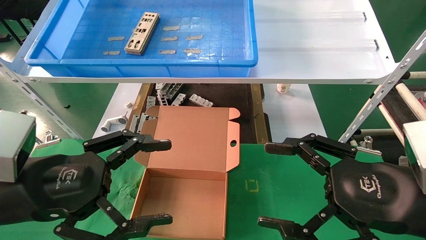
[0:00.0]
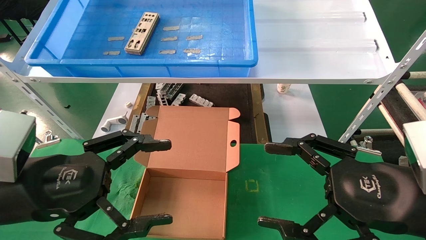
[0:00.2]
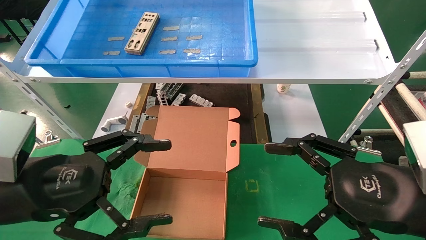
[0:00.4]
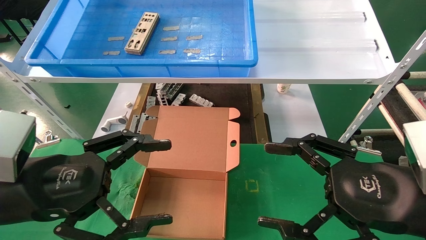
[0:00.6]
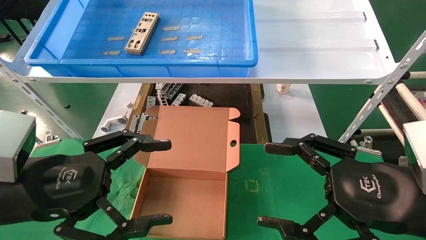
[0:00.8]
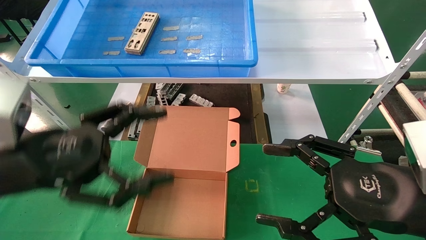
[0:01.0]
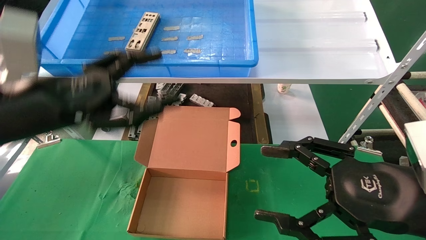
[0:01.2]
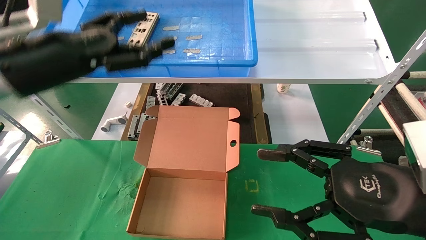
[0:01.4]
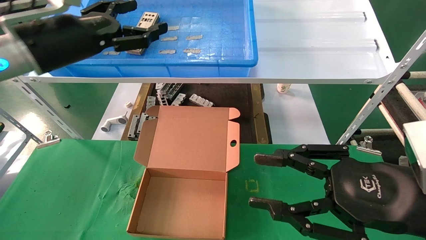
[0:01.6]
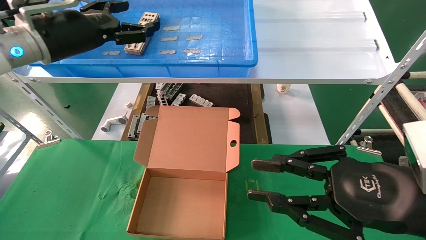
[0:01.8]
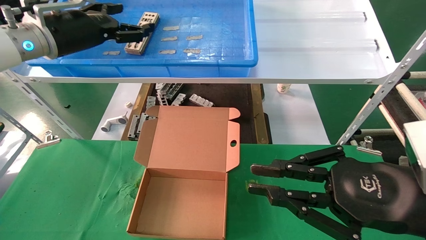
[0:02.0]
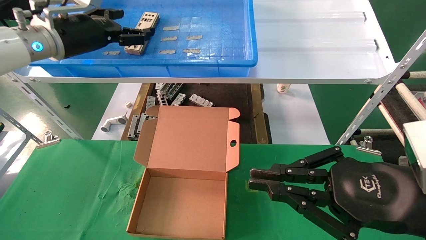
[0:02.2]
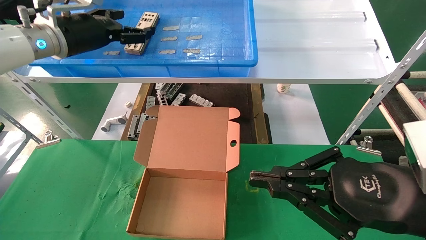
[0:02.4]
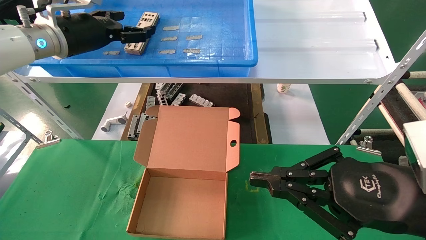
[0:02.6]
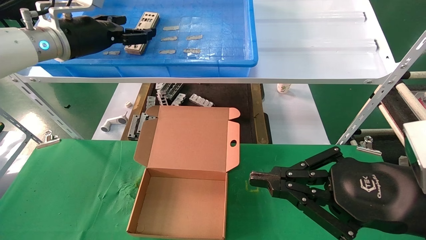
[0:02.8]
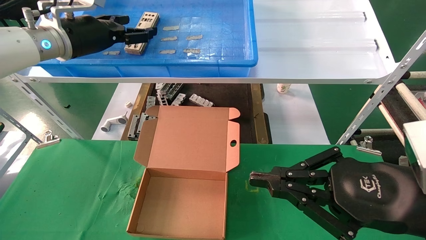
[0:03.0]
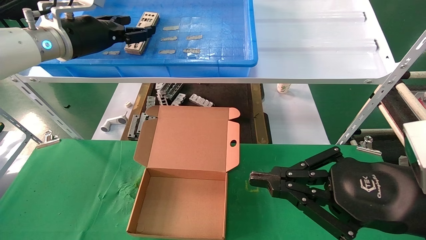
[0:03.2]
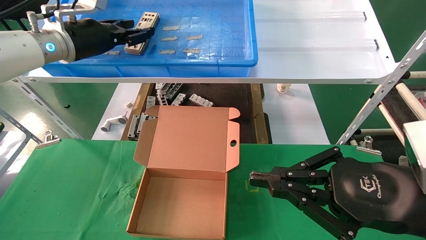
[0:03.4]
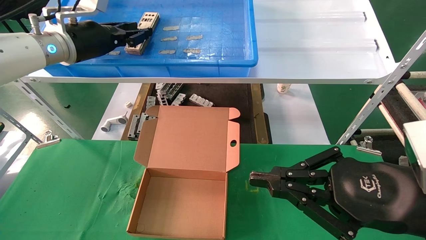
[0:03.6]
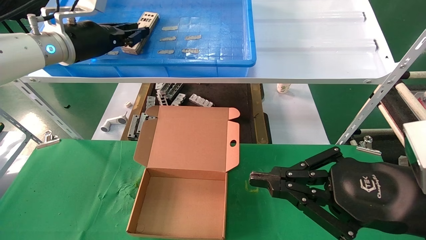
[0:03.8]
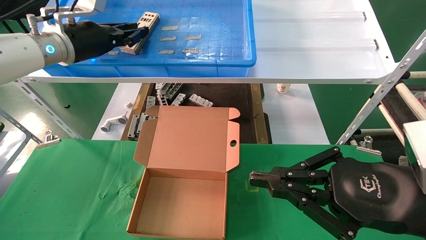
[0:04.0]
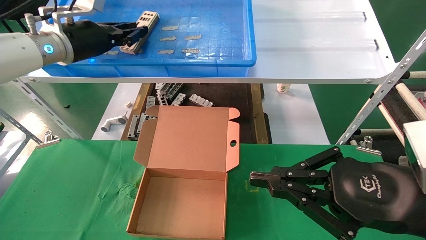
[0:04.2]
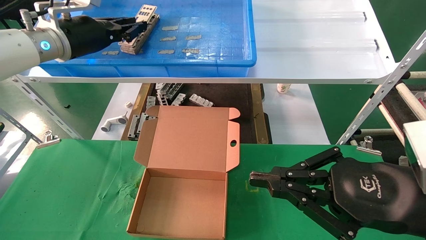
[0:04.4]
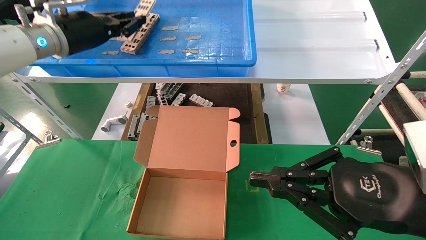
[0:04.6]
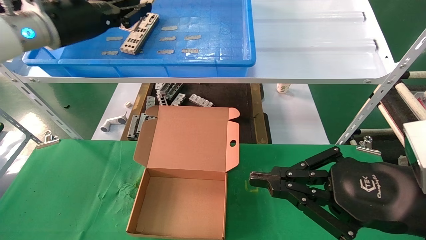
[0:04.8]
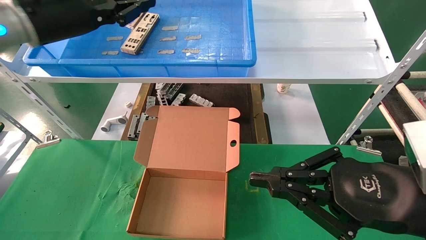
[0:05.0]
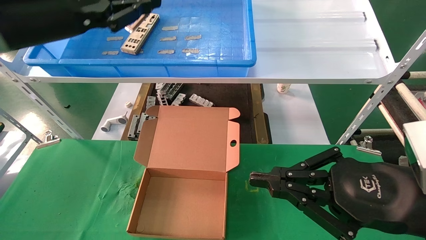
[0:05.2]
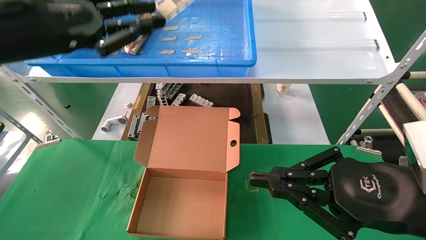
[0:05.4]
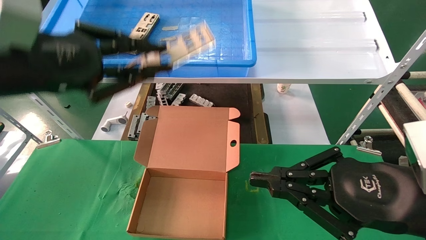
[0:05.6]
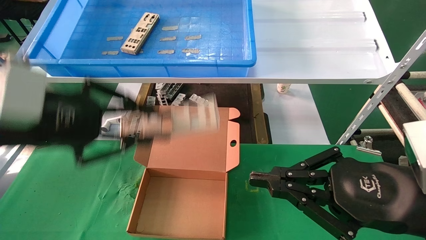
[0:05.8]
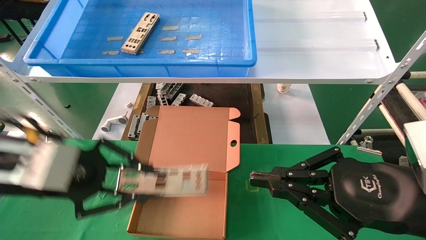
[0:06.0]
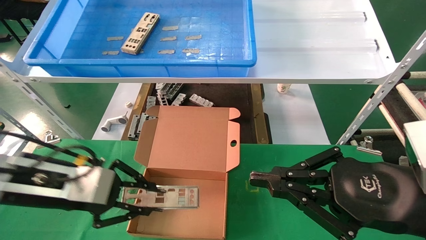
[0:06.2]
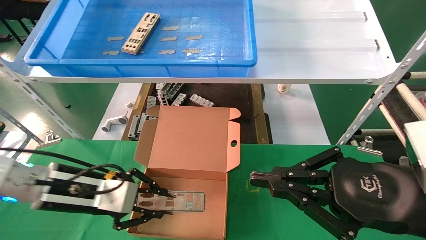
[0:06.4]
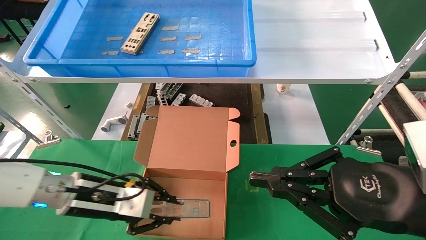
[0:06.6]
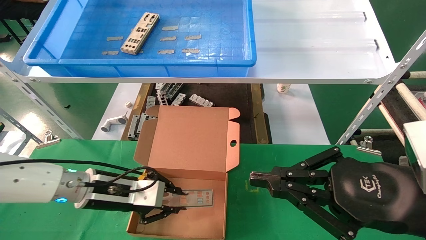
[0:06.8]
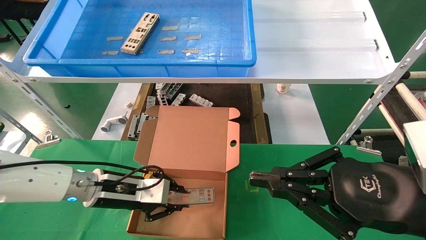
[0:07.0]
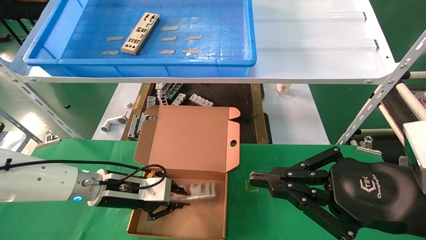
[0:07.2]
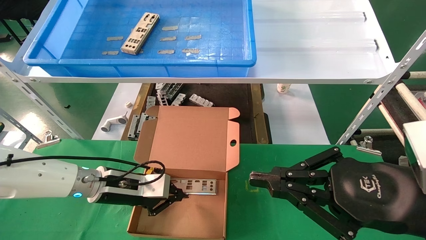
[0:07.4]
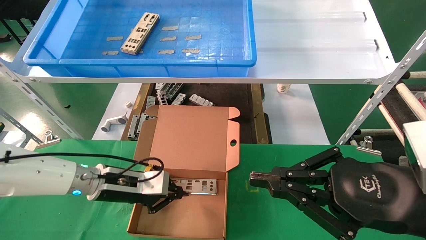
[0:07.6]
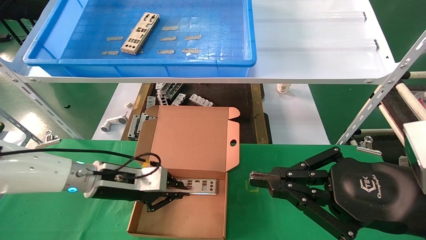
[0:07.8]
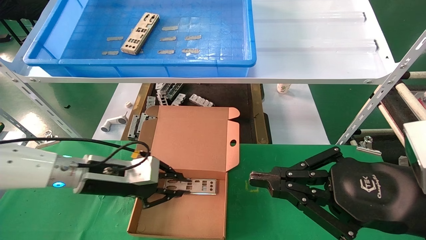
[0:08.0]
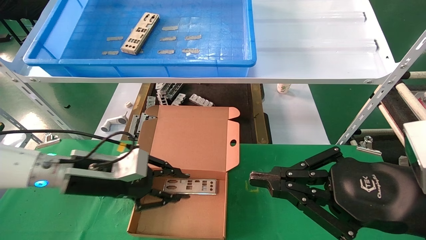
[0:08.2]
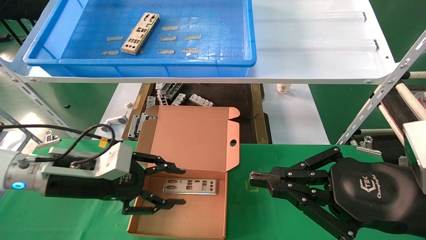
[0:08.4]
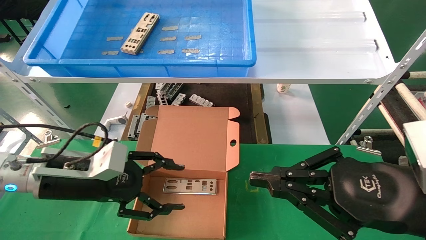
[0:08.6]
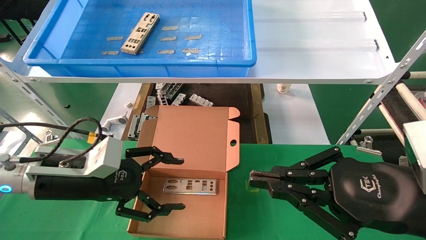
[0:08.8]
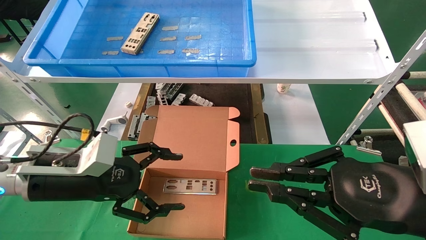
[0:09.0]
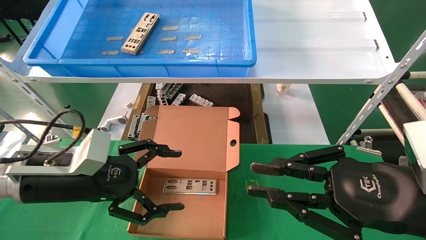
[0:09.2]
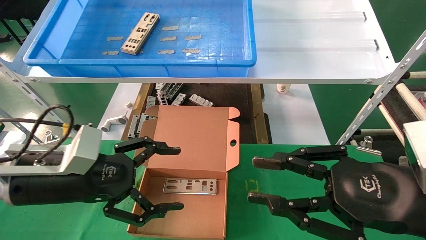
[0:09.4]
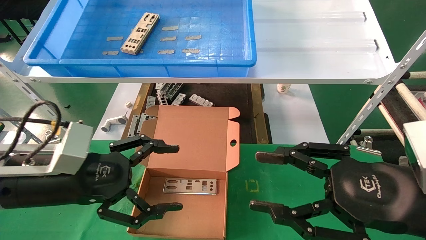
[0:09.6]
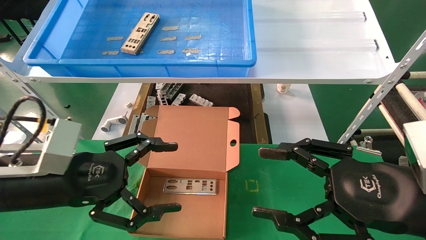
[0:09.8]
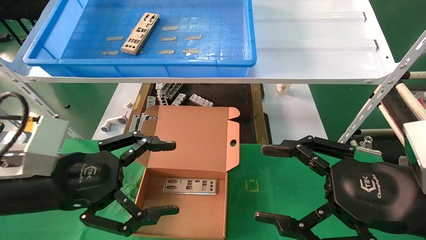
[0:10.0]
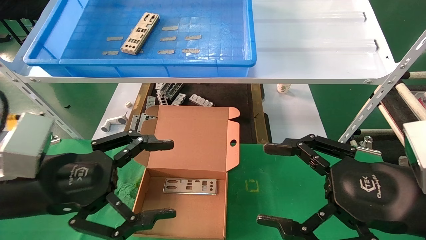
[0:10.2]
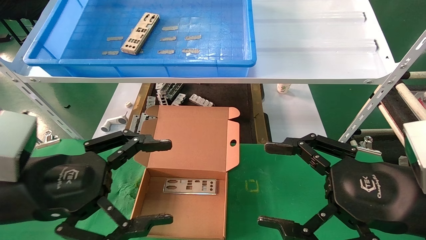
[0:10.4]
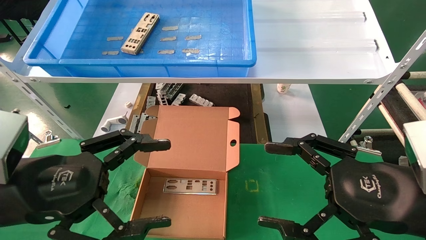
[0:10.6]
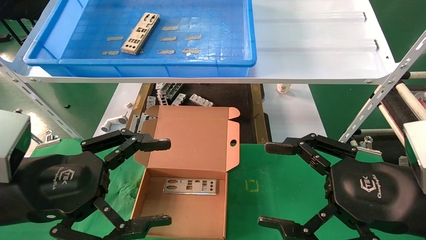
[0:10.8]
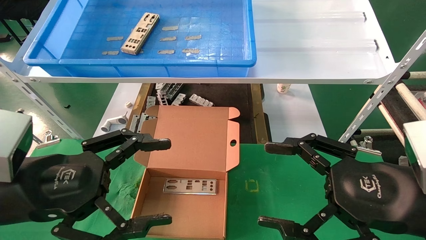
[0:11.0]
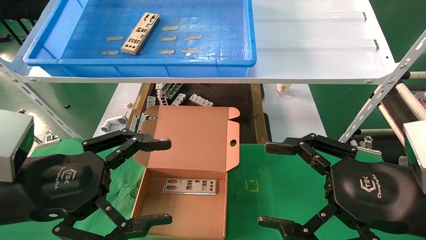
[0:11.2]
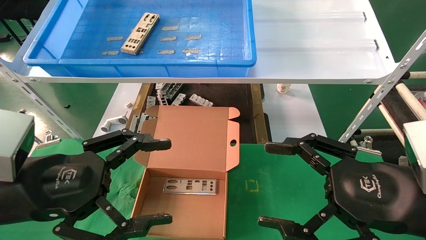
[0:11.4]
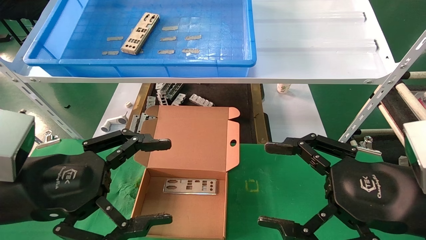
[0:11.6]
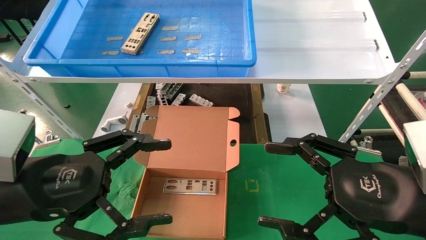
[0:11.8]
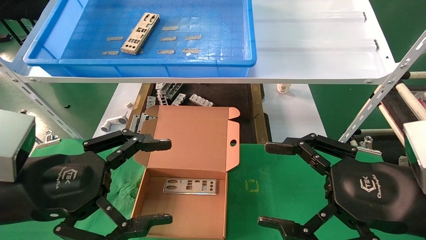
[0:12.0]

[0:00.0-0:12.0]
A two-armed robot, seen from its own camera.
Task of the whole recording: pick up the parts on the tray and put them in the cardboard box.
Step, 0:01.4 to 0:04.0: Pick up the IO bracket from the container box.
Step, 0:04.2 to 0:07.2: Place the IO bracket into the ingredient slot.
0:00.0 to 0:01.6: The right gripper closes, while the left gripper moves forward and upward, about 20 cm.
0:01.6 to 0:03.0: The right gripper closes. The left gripper is displaced forward by some 10 cm.
0:03.0 to 0:04.4: The left gripper closes.
0:04.4 to 0:06.0: The left gripper heads backward and downward, covering about 20 cm.
0:06.0 to 0:07.6: The left gripper travels downward and forward by some 20 cm.
0:07.6 to 0:09.0: The left gripper heads backward and upward, covering roughly 10 cm, and opens.
0:09.0 to 0:10.4: The right gripper opens; the left gripper goes about 10 cm backward.
0:10.4 to 0:12.0: Neither gripper changes place.

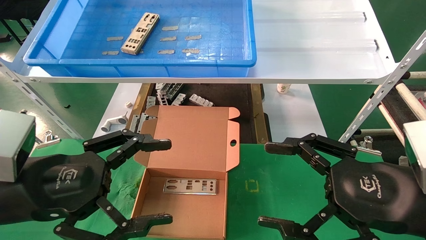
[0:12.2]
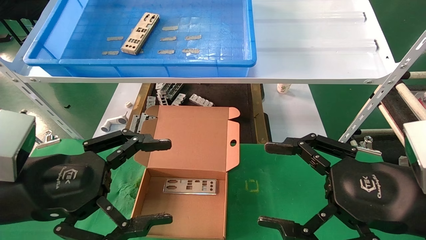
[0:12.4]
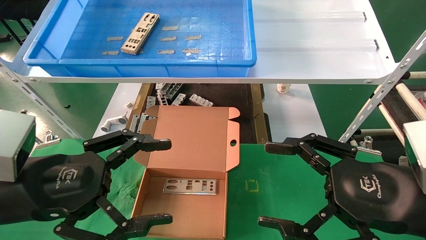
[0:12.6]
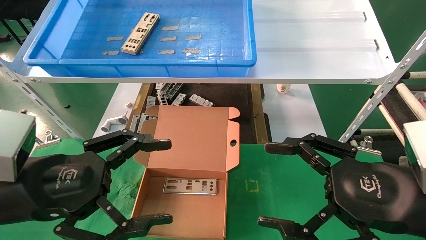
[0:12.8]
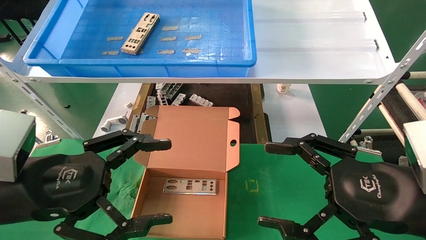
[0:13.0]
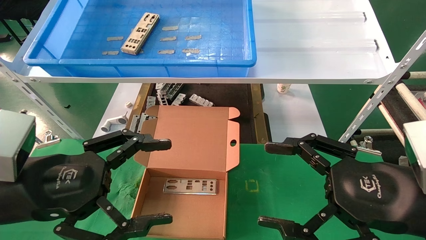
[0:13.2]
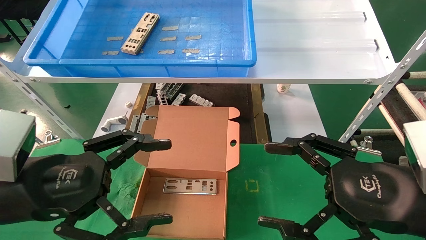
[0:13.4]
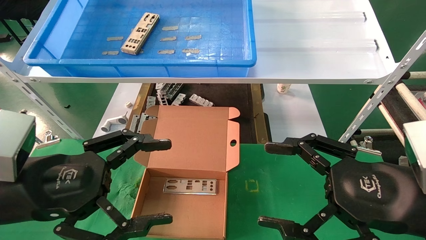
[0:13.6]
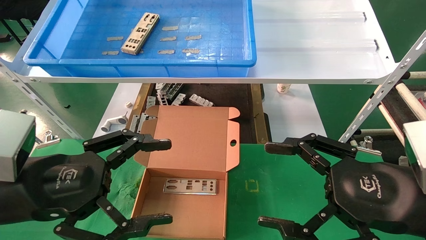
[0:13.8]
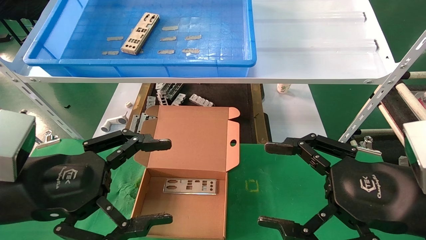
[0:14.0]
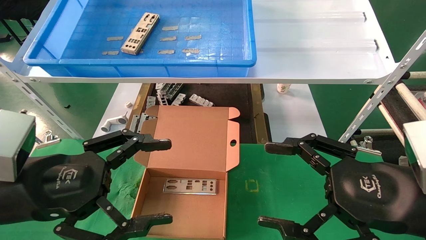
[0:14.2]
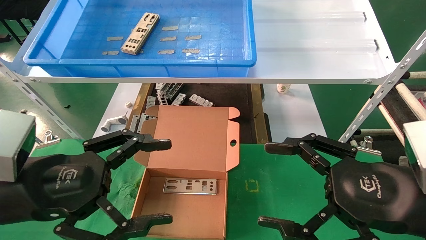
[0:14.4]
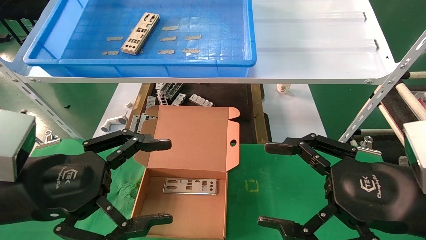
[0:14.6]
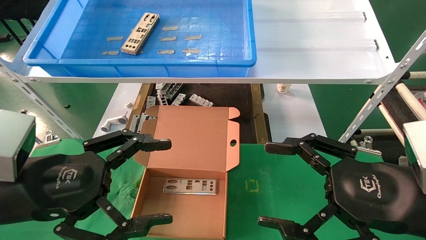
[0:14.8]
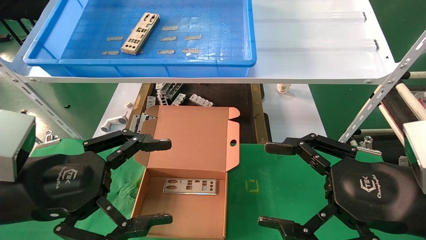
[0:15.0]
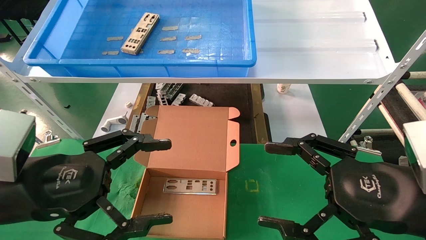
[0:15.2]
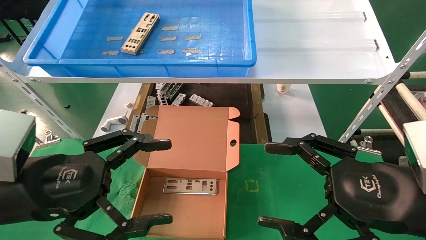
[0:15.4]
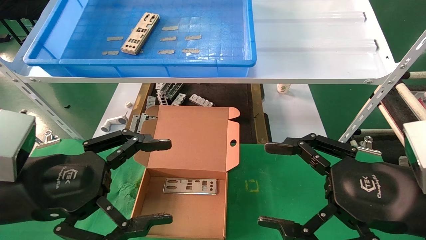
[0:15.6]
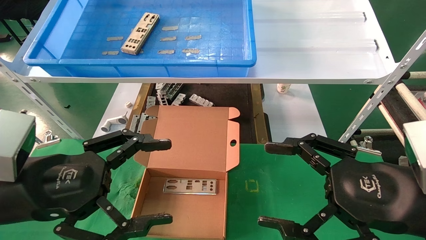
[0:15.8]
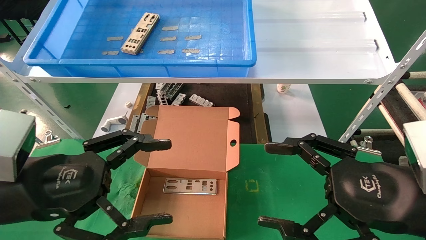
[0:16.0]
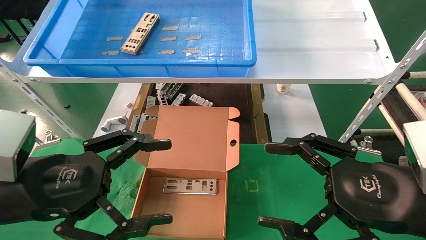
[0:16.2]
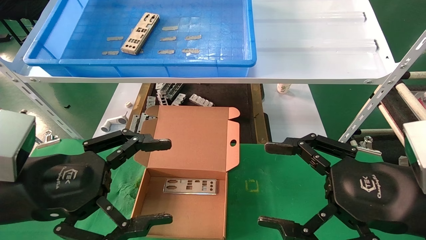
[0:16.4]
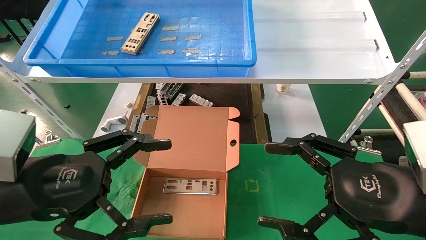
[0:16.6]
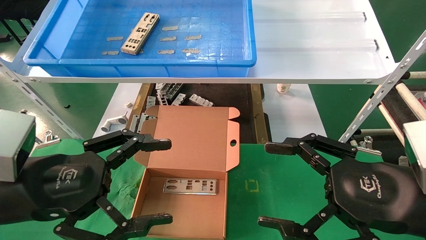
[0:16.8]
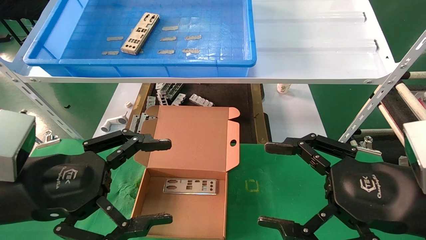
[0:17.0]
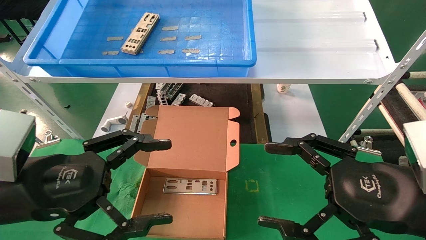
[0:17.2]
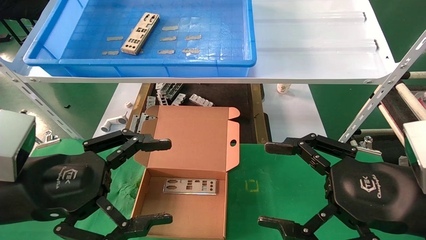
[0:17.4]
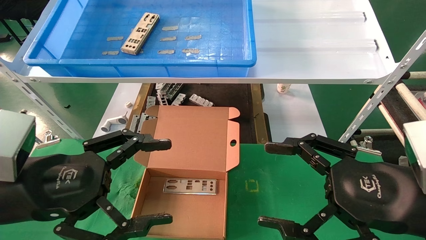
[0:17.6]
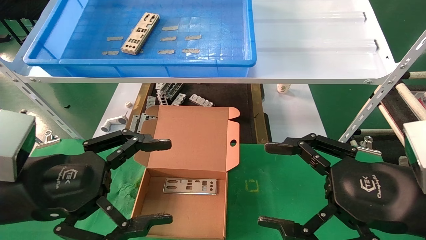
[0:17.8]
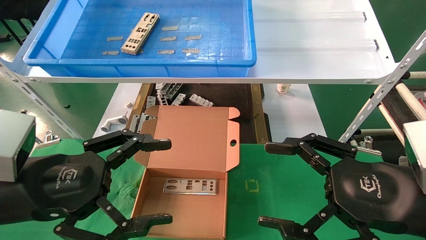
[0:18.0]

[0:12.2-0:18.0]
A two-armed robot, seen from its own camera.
Task of the whole recording: pick up the parts on the tray and put them in the cardboard box.
0:12.2 to 0:18.0: Both grippers stay about where they are.
